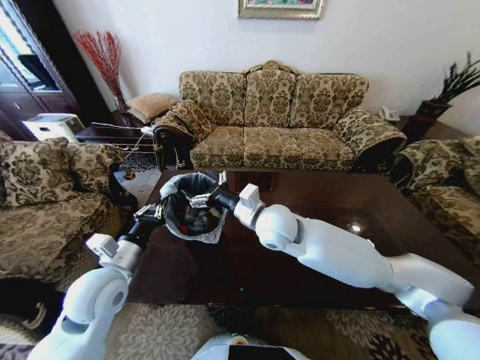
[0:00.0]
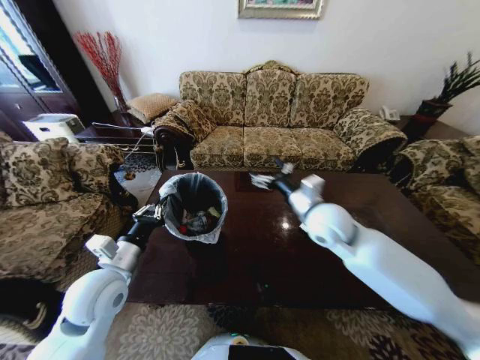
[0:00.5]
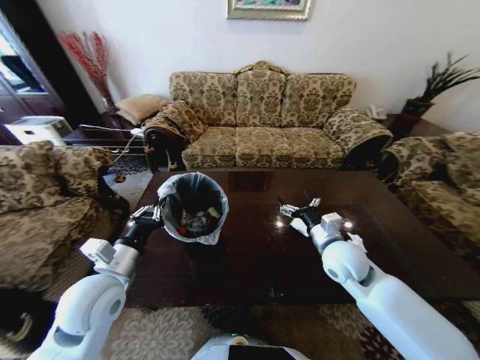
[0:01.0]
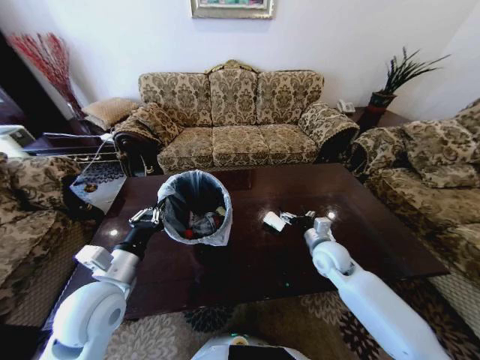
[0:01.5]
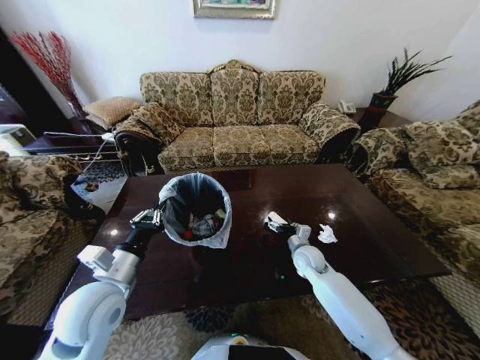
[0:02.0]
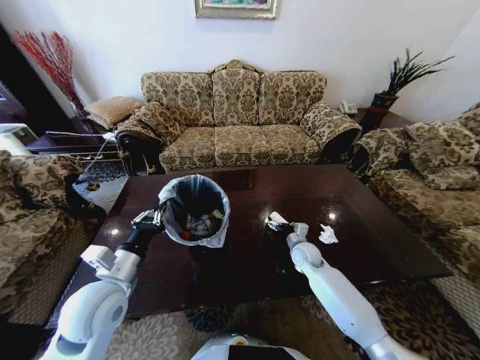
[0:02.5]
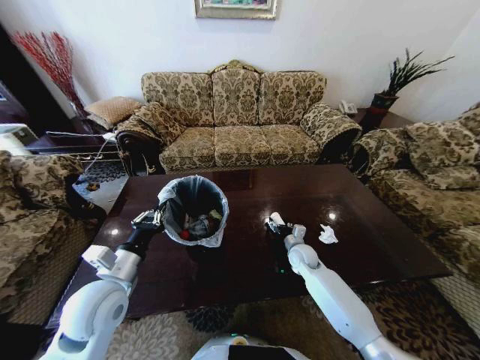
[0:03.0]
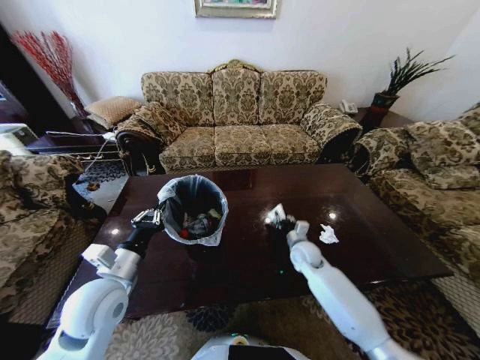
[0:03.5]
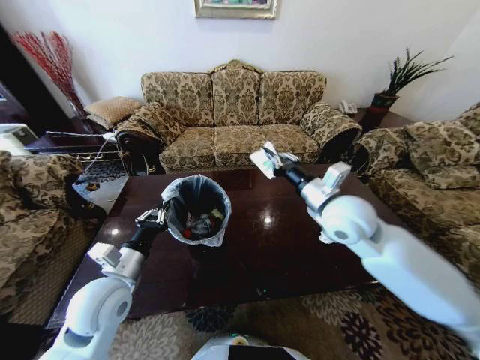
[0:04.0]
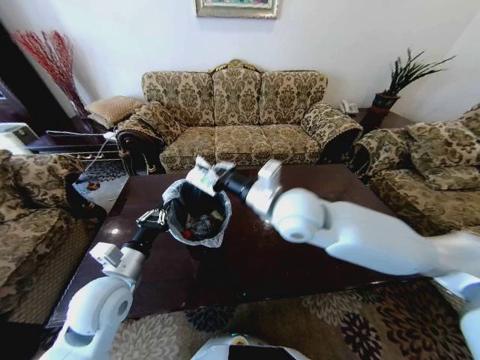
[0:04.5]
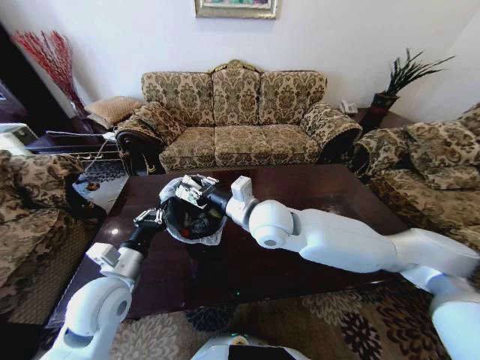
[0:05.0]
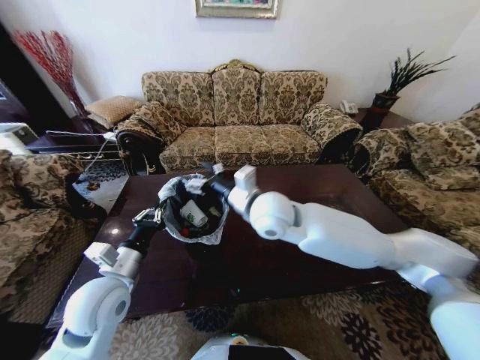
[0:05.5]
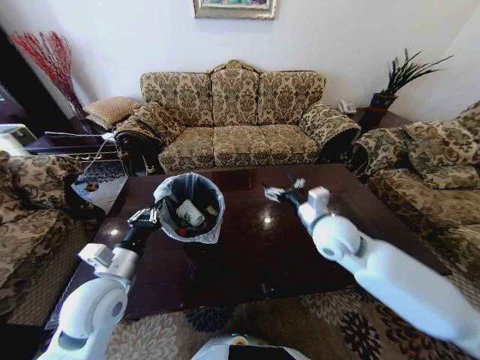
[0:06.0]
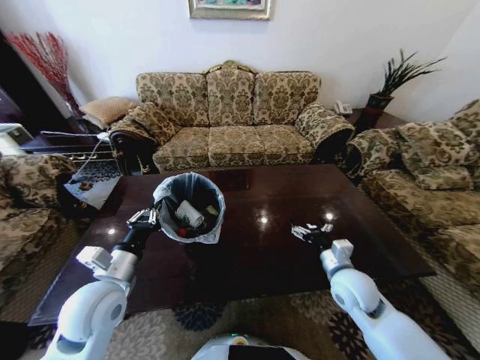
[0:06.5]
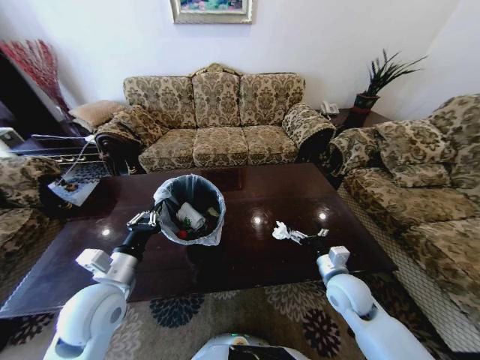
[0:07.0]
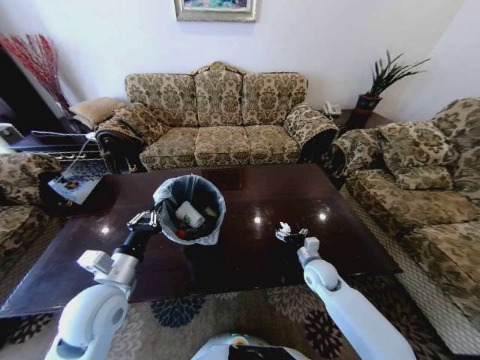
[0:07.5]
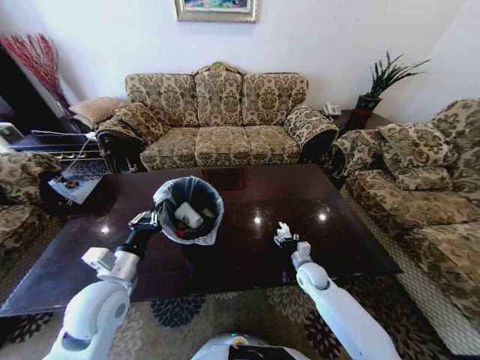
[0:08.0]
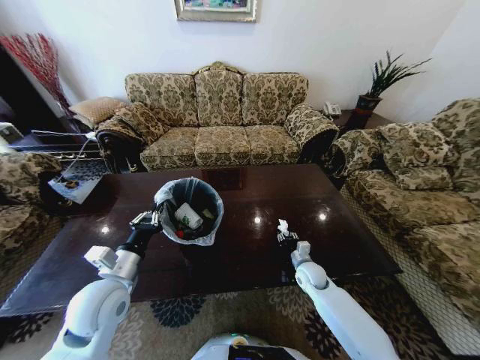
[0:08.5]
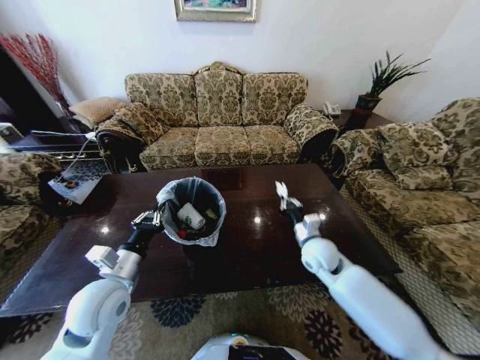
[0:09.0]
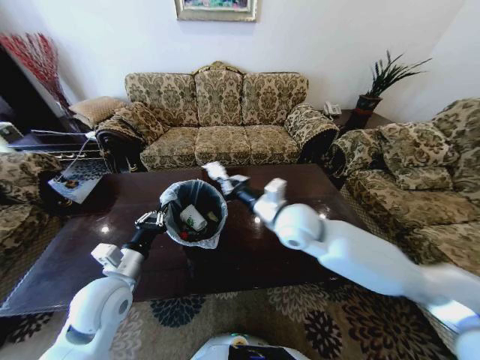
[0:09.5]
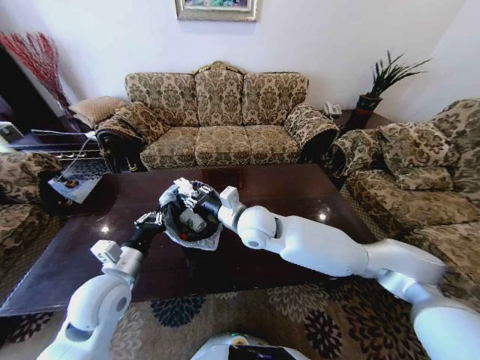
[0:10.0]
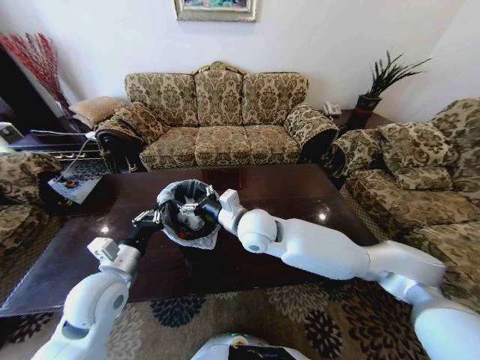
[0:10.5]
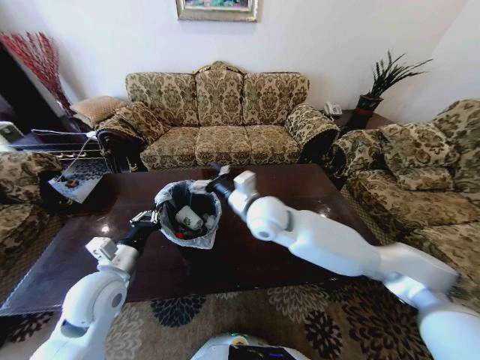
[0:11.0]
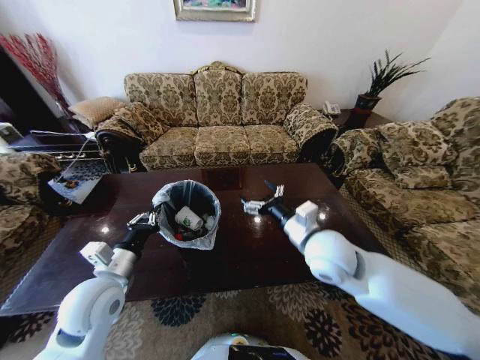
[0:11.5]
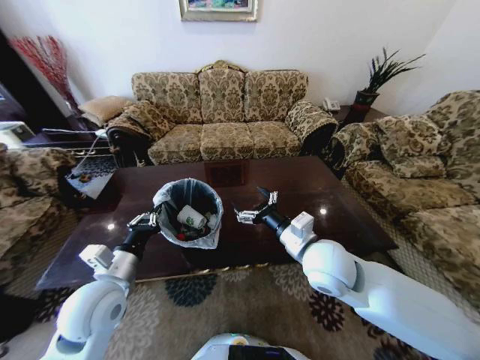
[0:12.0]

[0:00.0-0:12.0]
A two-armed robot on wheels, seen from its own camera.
Task of the whole recording: Move to the front of the table and place the trash on the table into the trash bin.
0:00.0 to 0:02.0: The right gripper is displaced downward and to the right by some 30 cm.
0:02.0 to 0:04.0: The right gripper goes roughly 30 cm upward, and closes.
0:04.0 to 0:06.0: The right gripper travels downward by some 10 cm, reaches roughly 15 cm to the left, then returns, and opens up.
0:06.0 to 0:08.0: The right gripper goes about 25 cm downward.
0:08.0 to 0:10.0: The right gripper goes some 35 cm upward and to the left, and closes its fingers.
0:10.0 to 0:12.0: The right gripper heads to the right and backward, covering roughly 15 cm, and opens its fingers.

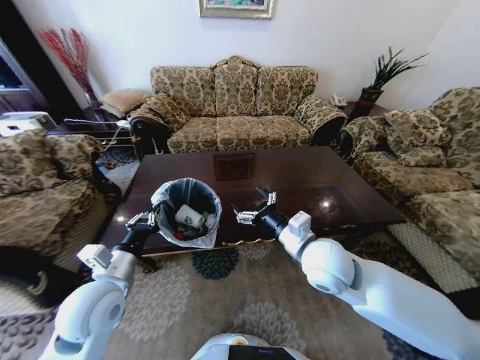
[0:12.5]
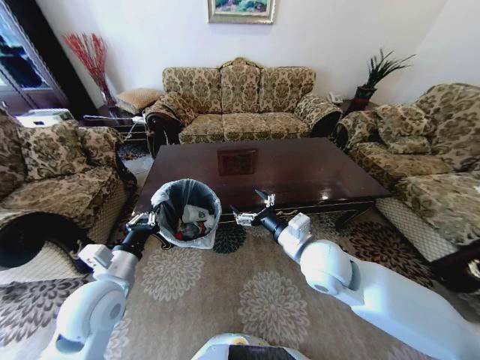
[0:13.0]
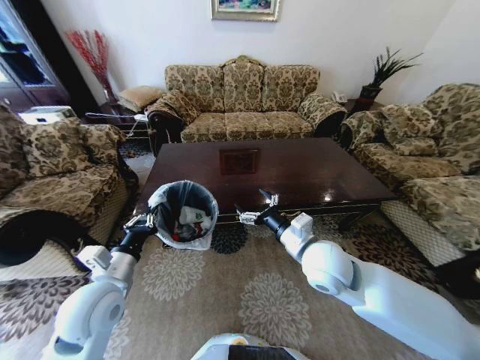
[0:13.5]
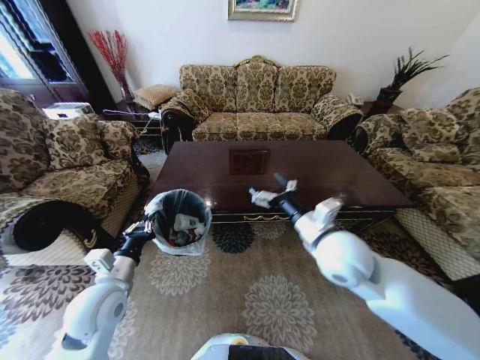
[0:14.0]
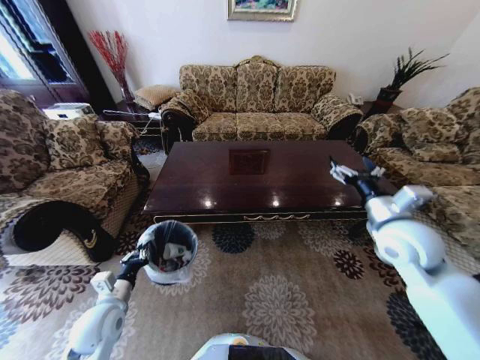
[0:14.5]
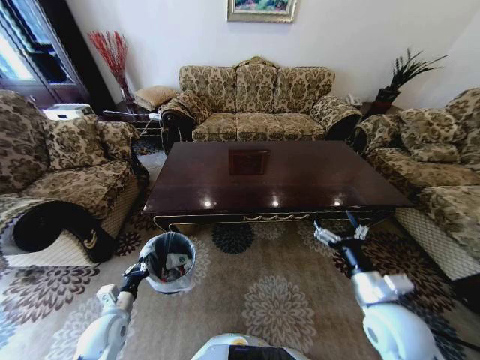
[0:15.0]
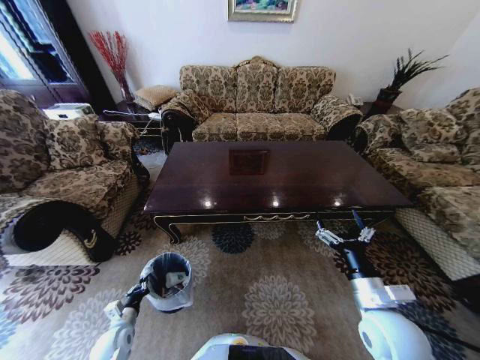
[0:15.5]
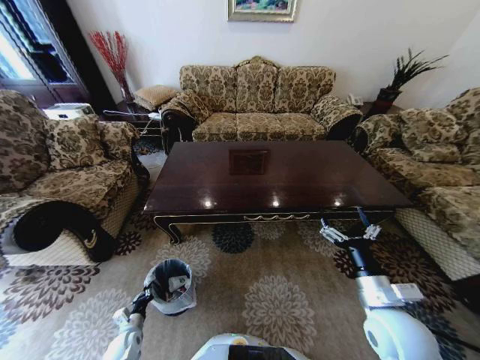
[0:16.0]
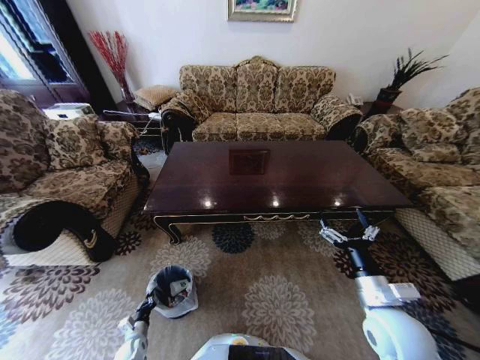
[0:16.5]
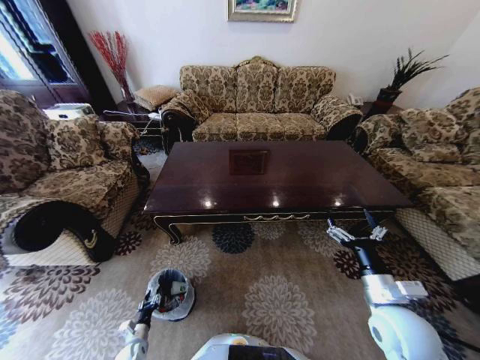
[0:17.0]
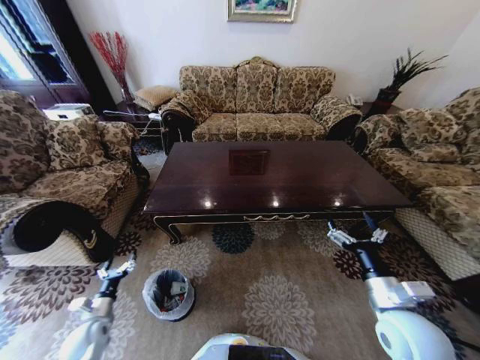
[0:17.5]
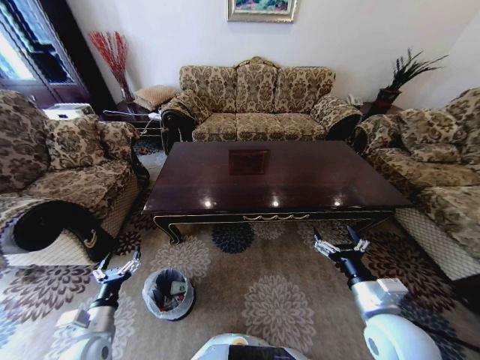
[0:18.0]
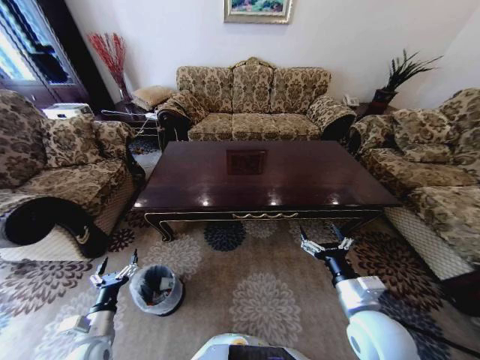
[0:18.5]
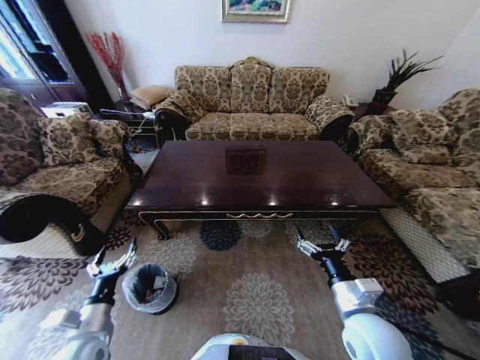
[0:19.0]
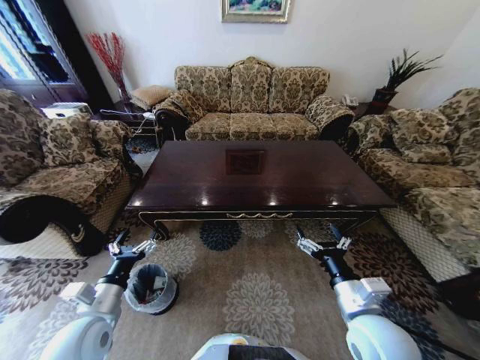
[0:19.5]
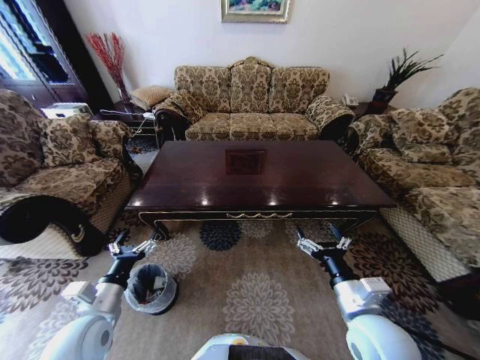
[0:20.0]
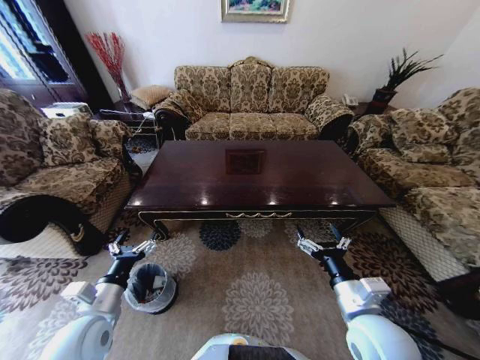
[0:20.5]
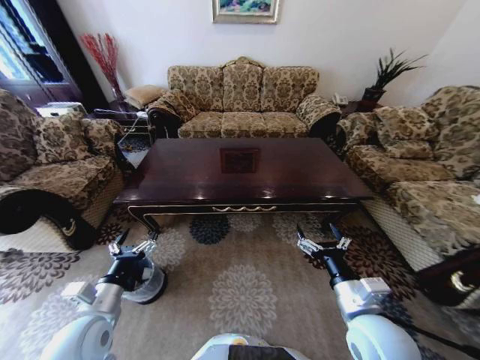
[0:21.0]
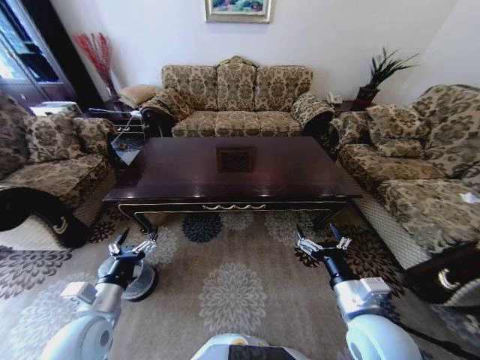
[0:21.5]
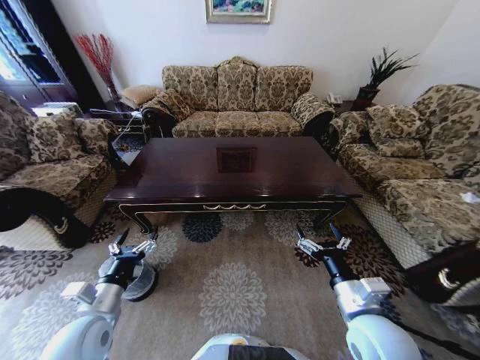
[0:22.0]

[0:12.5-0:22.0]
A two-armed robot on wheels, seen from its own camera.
Task of the whole recording: Move to the front of the table and place the trash on the table into the trash bin.
0:12.5 to 0:14.5: The left gripper is displaced downward and to the left by roughly 15 cm, while the right gripper heads to the right, covering some 15 cm.
0:14.5 to 0:16.5: The left gripper is displaced downward by approximately 30 cm. The right gripper heads backward and downward, covering roughly 20 cm.
0:16.5 to 0:18.0: The left gripper shifts approximately 30 cm upward, and opens.
0:18.0 to 0:20.0: The right gripper travels to the left by approximately 5 cm. Meanwhile the left gripper goes approximately 10 cm upward.

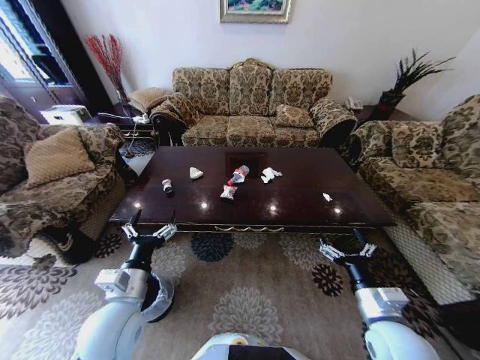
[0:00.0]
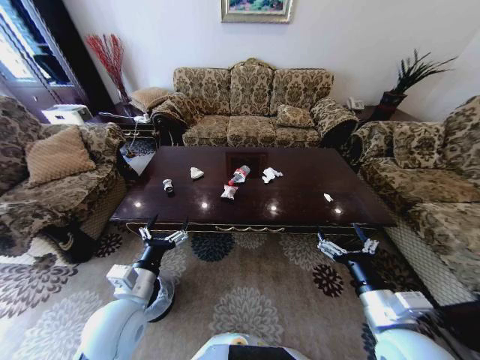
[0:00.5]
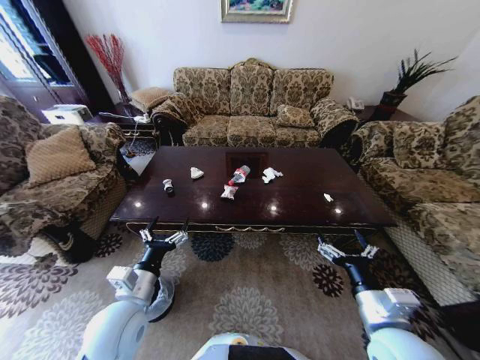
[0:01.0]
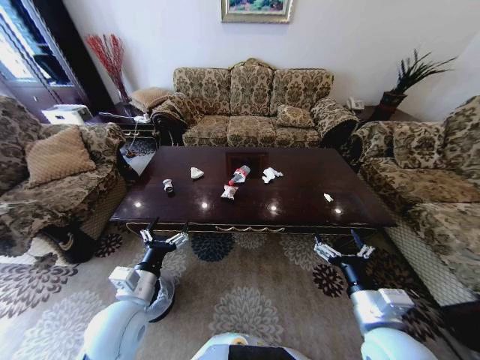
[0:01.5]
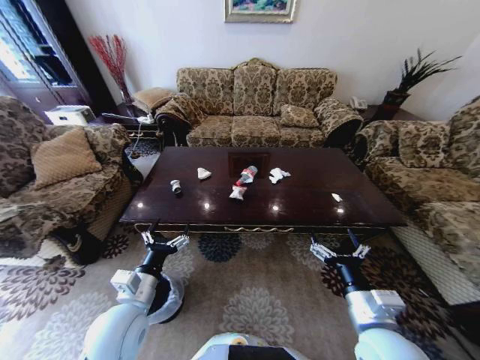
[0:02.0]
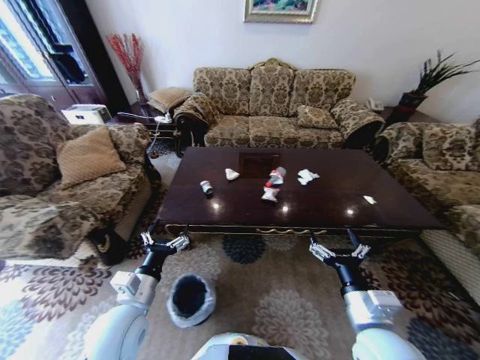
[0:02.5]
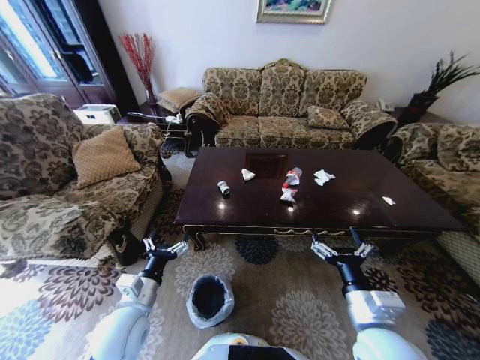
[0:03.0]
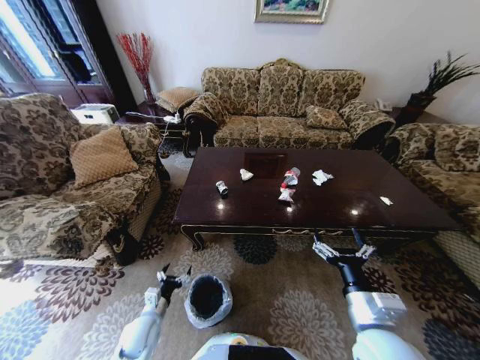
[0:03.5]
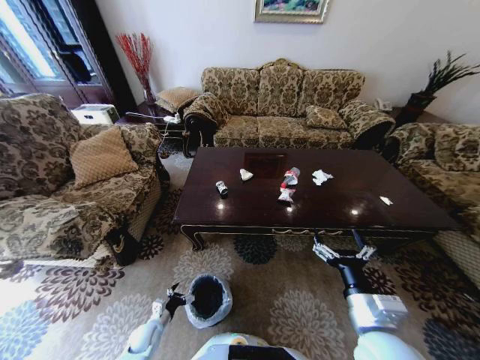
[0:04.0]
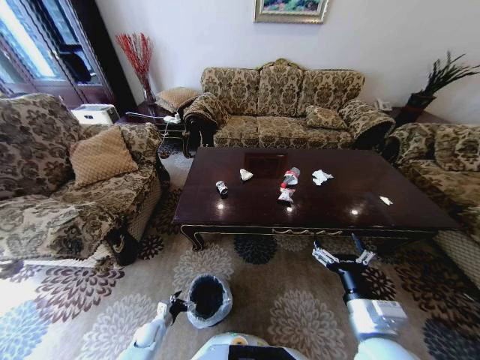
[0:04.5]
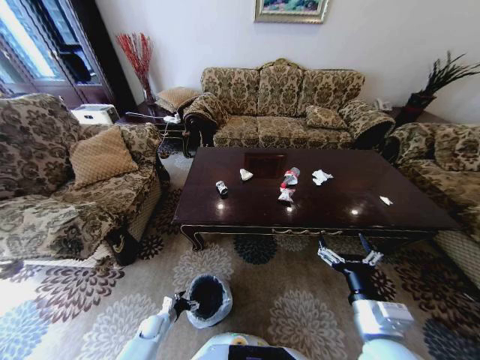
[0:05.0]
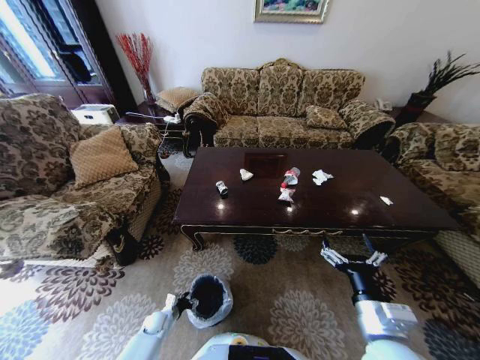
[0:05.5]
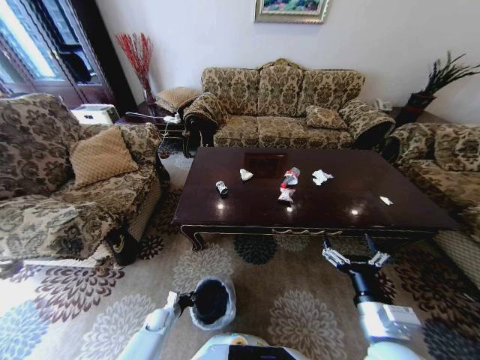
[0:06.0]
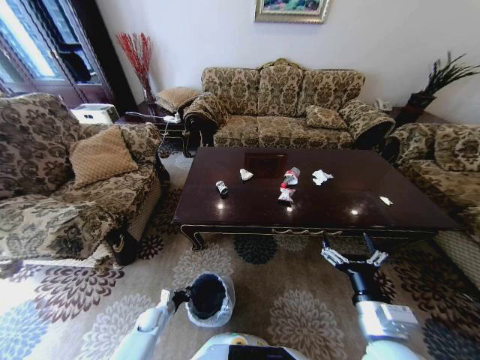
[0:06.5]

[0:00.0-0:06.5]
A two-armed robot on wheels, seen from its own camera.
Task of the whole recording: Move to the front of the table and place the trash on the table into the trash bin.
0:02.0 to 0:04.5: The left gripper shifts about 35 cm downward.
0:04.5 to 0:06.5: The left gripper closes.
